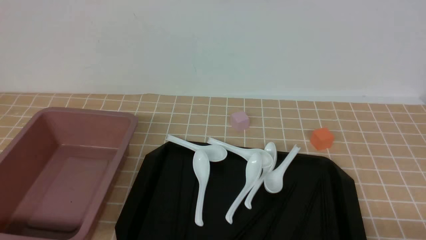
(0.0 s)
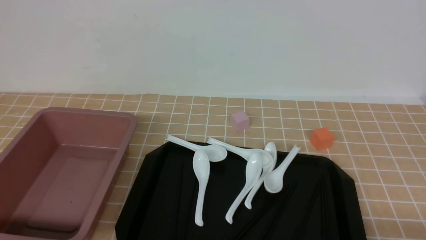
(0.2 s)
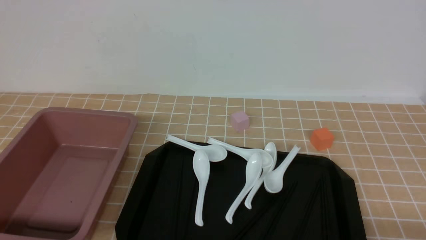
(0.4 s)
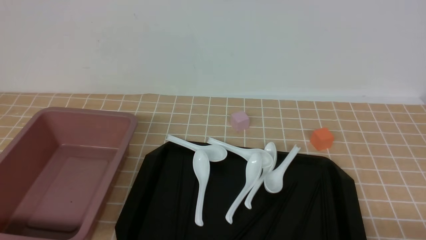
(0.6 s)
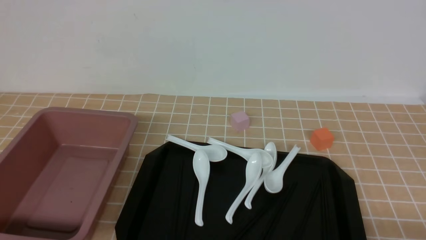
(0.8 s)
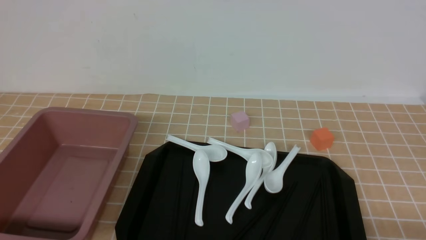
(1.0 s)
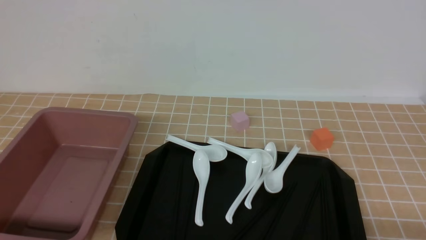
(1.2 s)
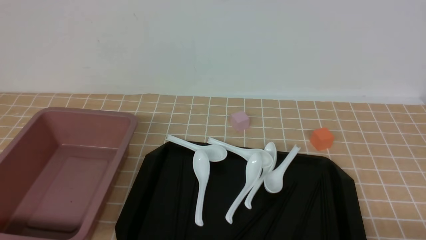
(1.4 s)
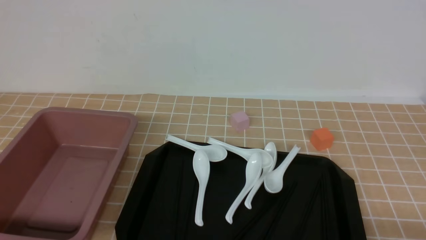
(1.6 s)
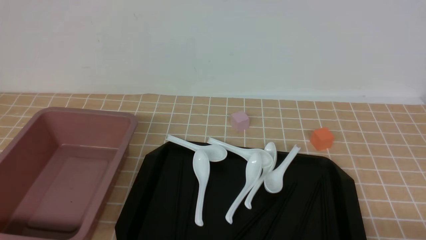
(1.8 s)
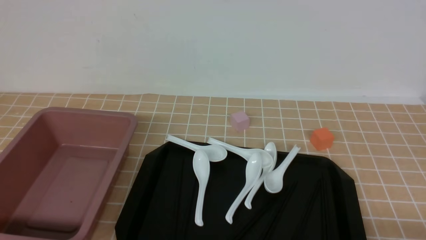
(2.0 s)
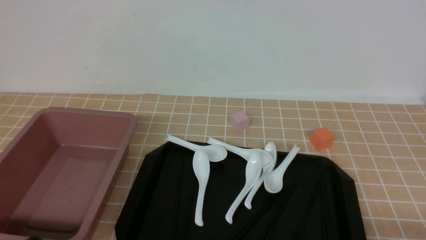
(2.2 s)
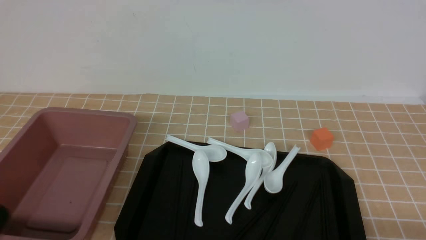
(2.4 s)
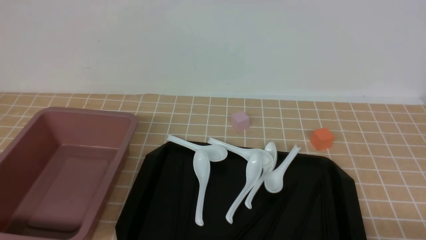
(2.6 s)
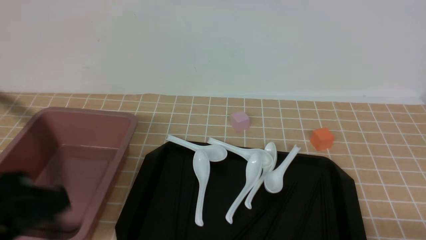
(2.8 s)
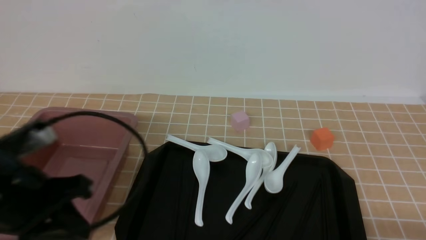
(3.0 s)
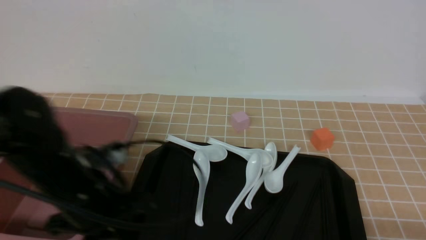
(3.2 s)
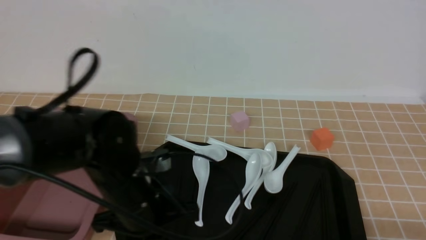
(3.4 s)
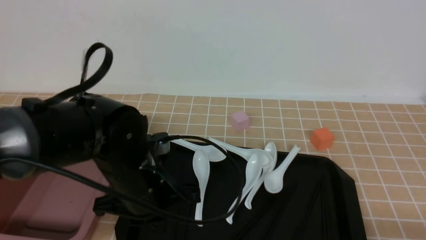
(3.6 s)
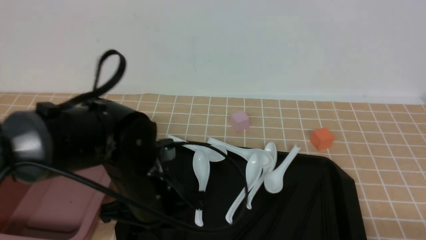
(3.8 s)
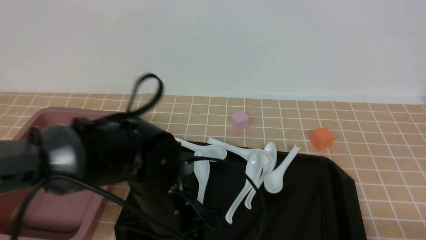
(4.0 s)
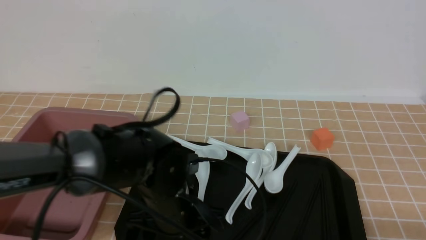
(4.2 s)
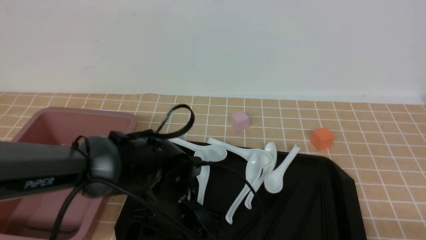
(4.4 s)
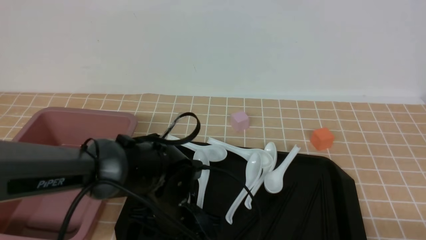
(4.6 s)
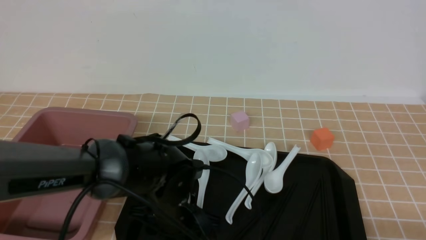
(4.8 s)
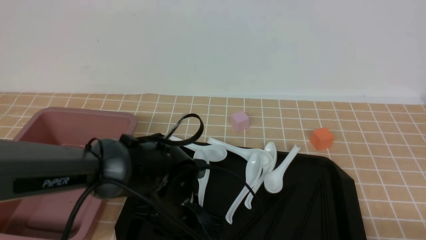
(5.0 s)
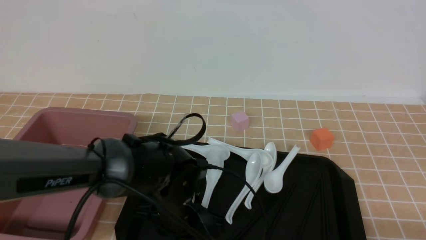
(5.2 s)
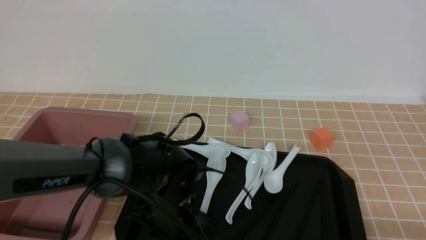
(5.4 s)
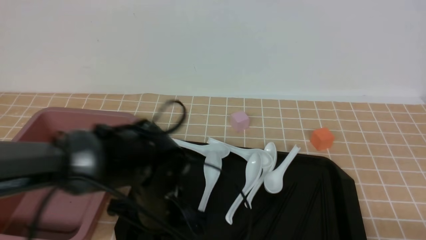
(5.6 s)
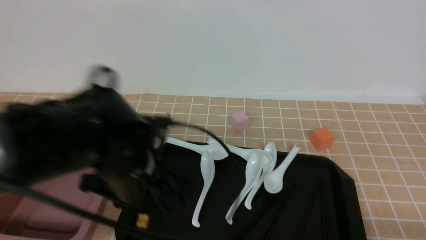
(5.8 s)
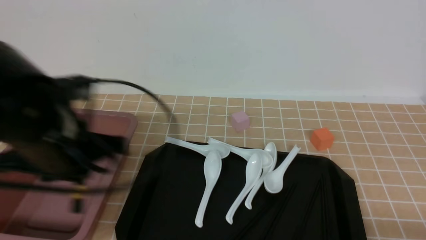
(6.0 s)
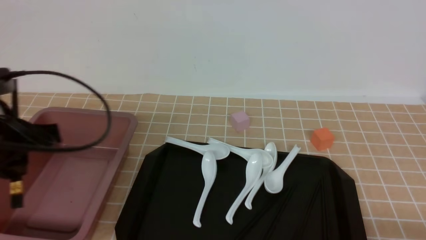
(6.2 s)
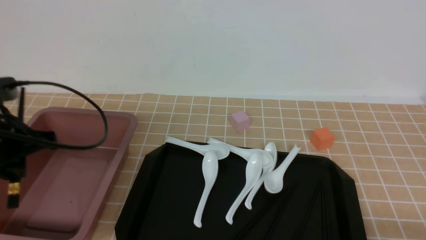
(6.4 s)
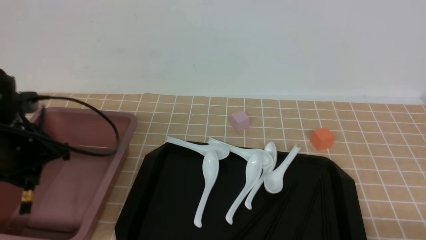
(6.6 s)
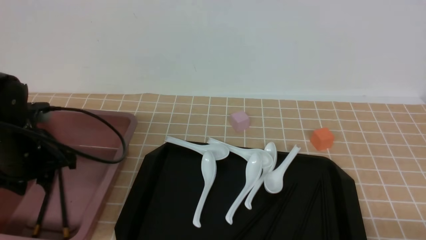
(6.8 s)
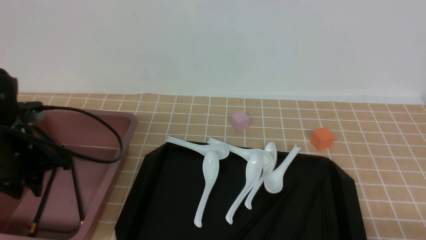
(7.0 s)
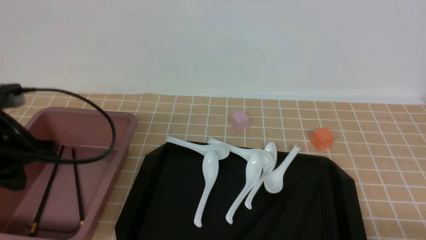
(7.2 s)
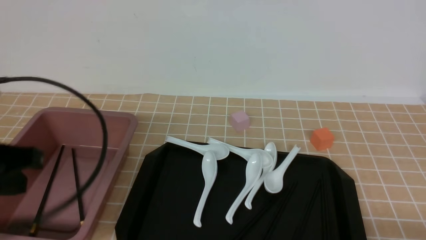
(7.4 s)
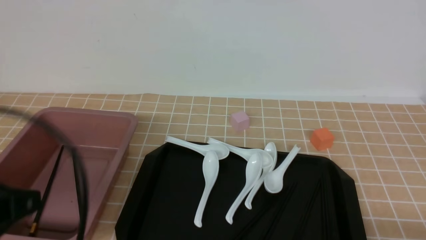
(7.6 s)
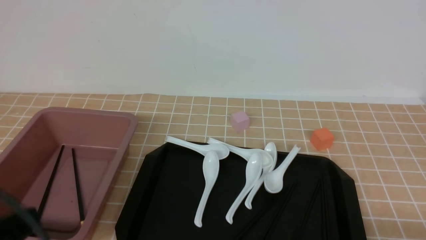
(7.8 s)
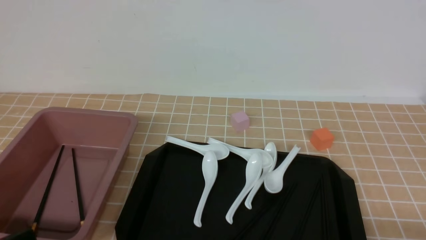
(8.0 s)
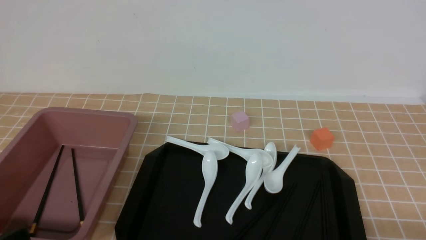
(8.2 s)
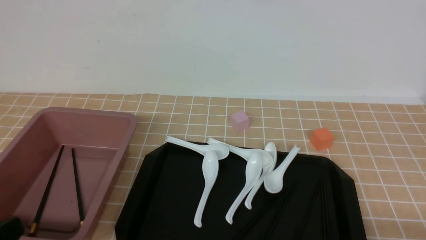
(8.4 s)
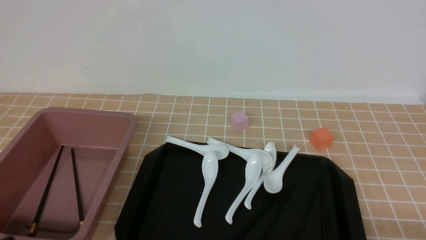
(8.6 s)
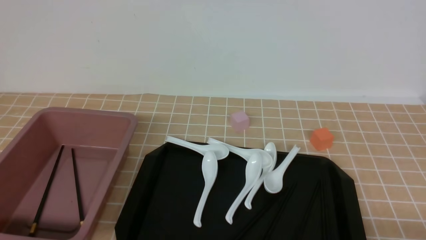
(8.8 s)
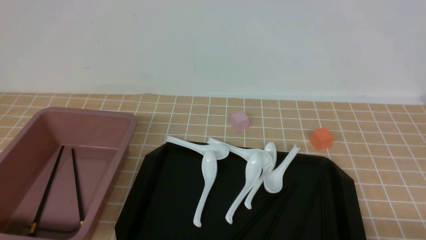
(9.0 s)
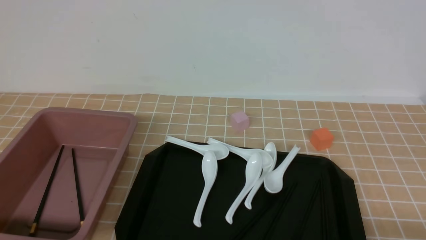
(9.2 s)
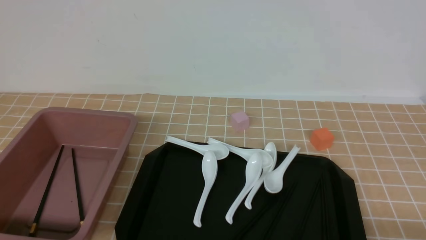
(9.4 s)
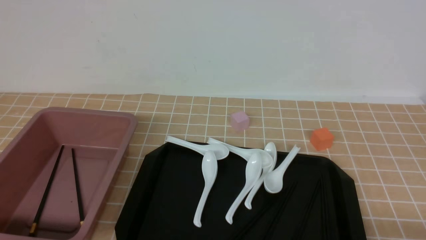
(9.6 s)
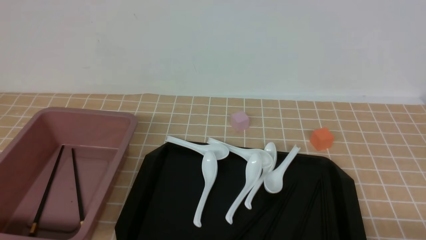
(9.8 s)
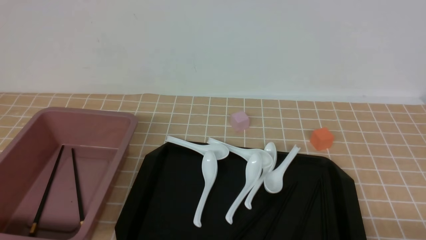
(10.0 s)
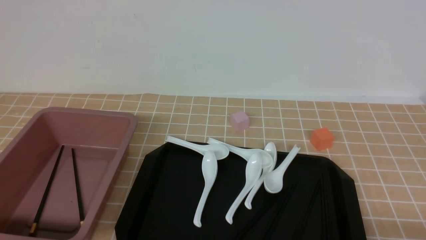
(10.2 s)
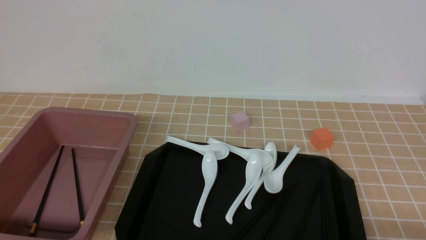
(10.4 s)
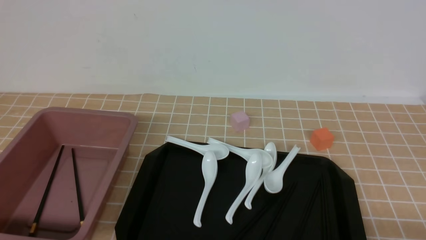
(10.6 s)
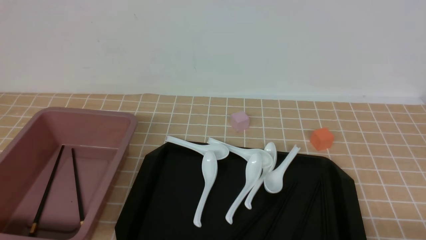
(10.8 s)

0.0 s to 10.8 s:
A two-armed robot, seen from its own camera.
Step, 0.0 to 5.6 s: use the left arm to grab a pair of chopsticks.
Step, 6.0 to 7.2 s: use the left arm to put the chopsticks into the lunch box.
0.0 to 1.6 s: The two grippers keep their place.
1.6 to 3.0 s: The left gripper heads forward, upward and to the right, covering approximately 20 cm, and closes up.
3.0 to 4.6 s: The left gripper is displaced to the right, downward and forward by approximately 20 cm, and opens up.
4.6 to 6.2 s: The left gripper goes some 25 cm to the left and upward, and closes its fingers.
6.2 to 7.8 s: The left gripper moves backward, about 20 cm.
7.8 to 9.2 s: The left gripper is displaced downward by about 10 cm.
9.2 to 10.8 s: Neither gripper changes place.

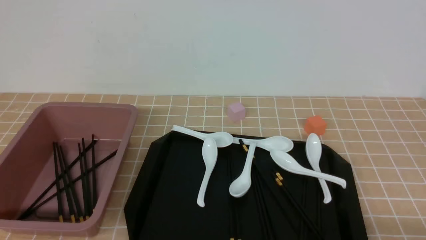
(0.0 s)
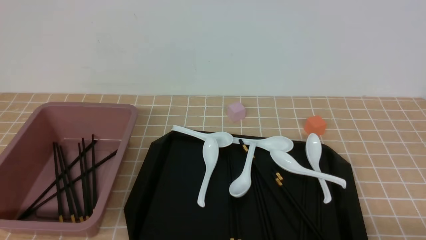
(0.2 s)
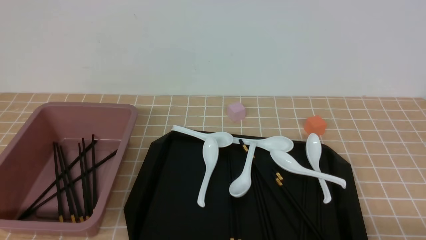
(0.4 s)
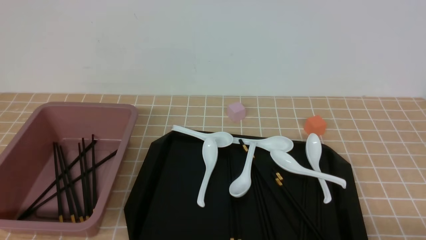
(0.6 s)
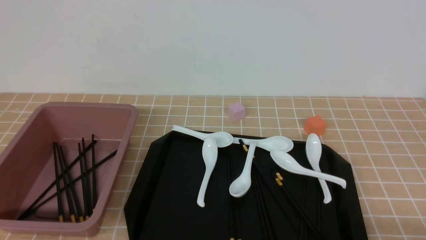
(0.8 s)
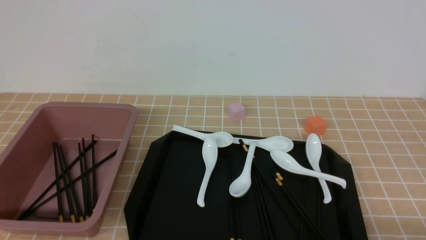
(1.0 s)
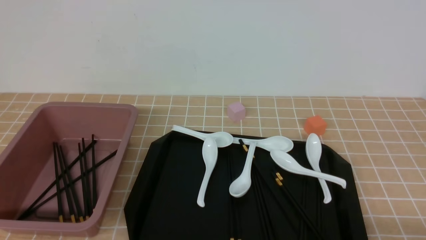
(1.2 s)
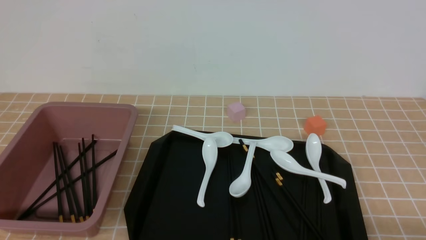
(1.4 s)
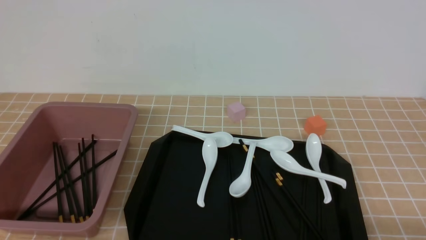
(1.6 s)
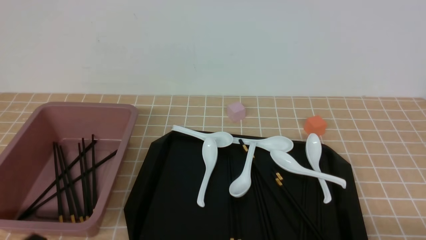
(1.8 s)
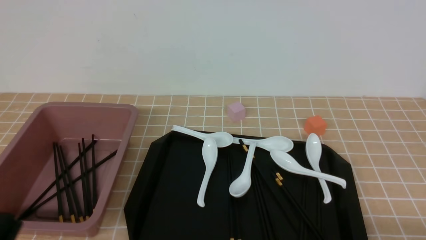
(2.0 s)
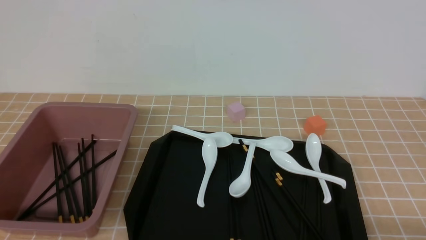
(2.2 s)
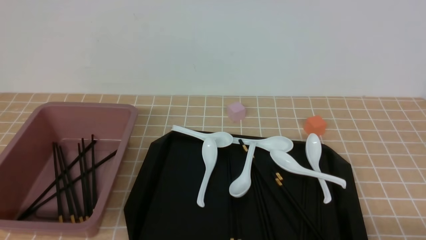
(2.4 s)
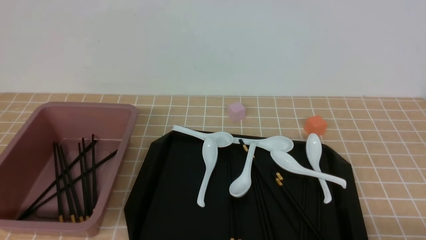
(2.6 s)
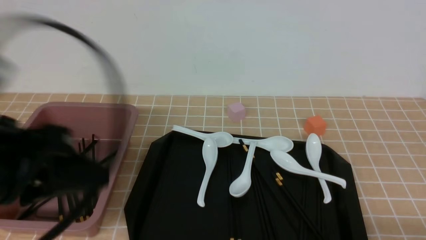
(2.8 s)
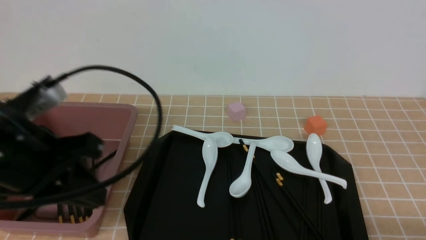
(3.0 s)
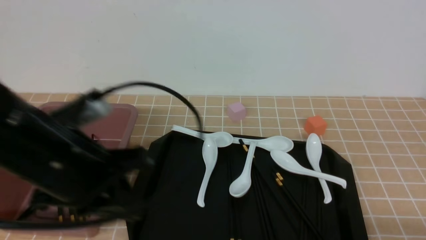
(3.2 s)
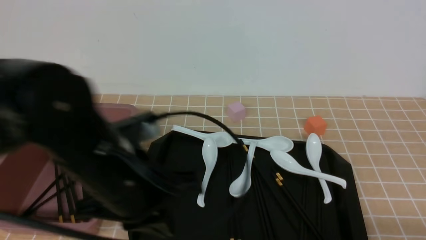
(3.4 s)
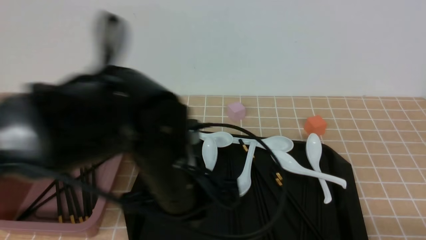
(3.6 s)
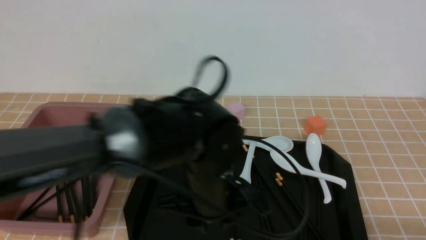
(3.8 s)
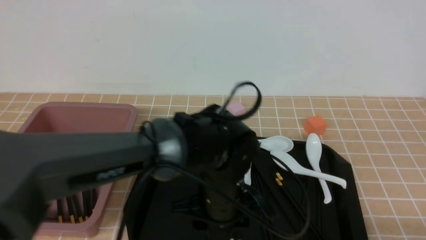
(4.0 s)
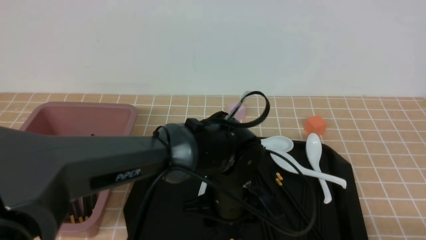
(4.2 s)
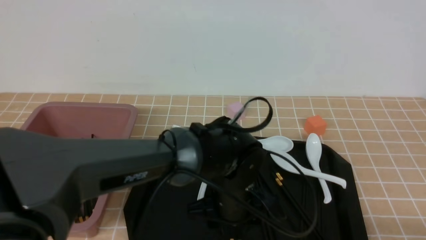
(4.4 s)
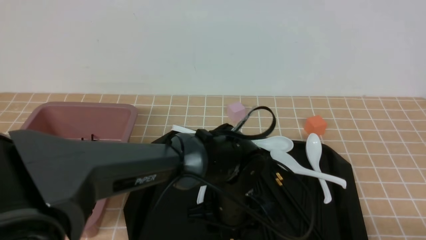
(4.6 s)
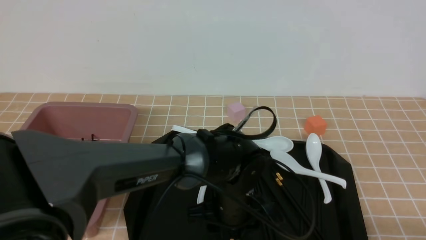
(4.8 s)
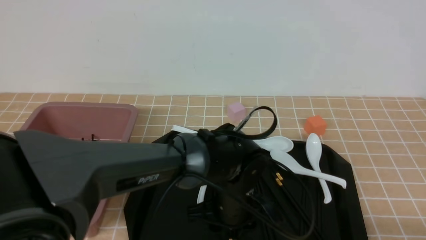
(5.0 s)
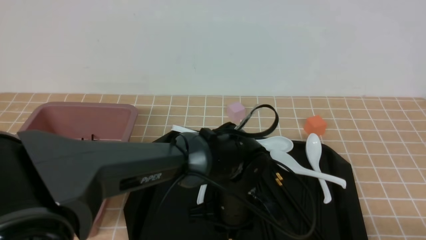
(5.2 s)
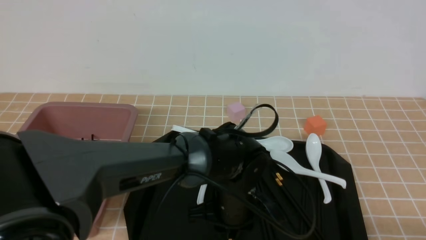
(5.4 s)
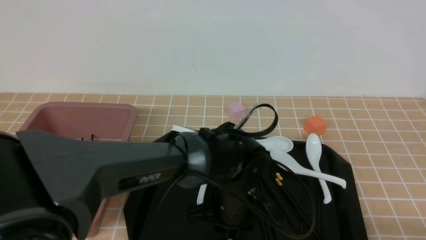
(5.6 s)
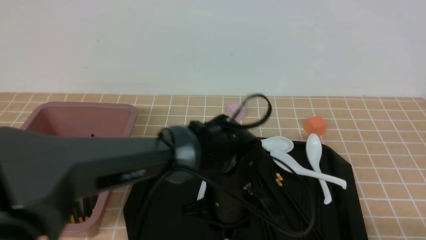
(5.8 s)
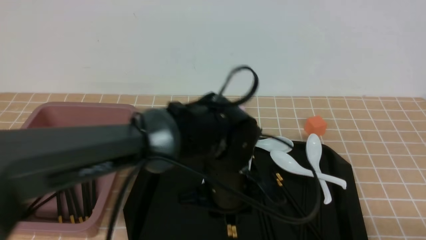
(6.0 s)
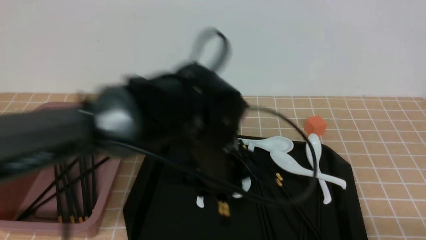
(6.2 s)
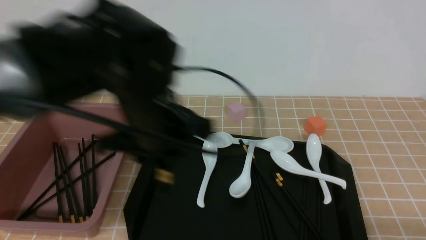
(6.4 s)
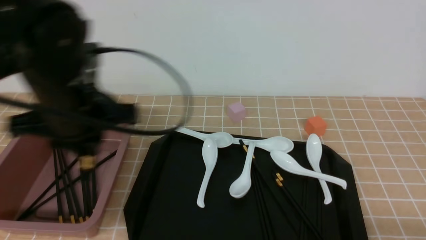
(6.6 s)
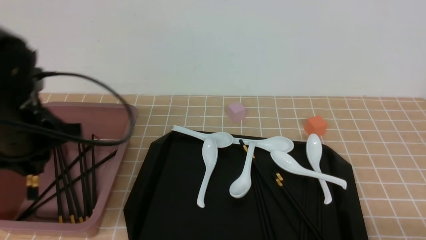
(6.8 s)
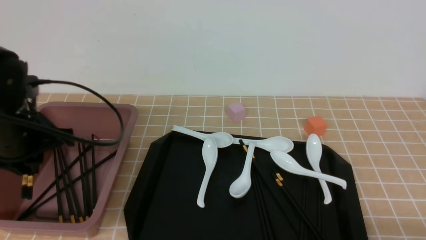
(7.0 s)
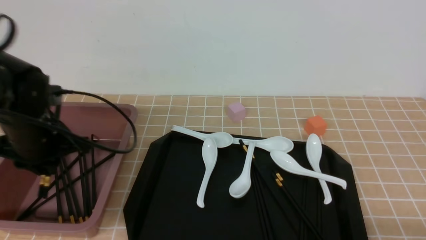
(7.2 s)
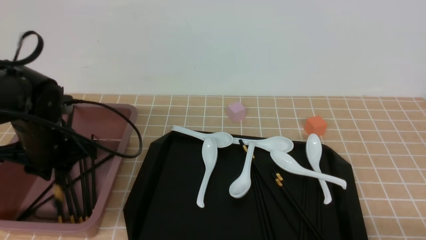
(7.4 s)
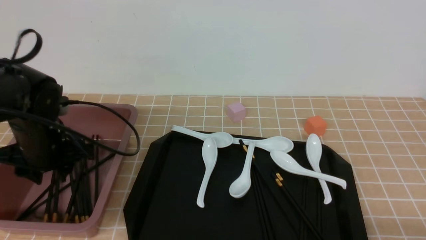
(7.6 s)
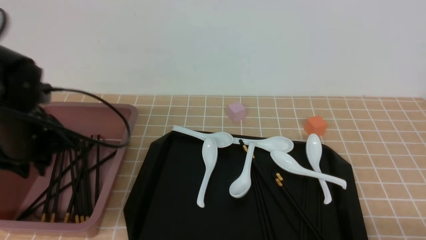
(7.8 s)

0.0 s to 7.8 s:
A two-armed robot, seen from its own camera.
Step, 0.0 to 6.0 s: use the left arm to grab a pair of chopsticks.
1.6 to 3.2 s: The left gripper goes roughly 20 cm upward, forward and to the right.
3.2 to 4.6 s: The left gripper is displaced to the right and downward by roughly 25 cm, and opens.
4.6 to 6.2 s: The left gripper moves upward, about 10 cm, and closes its fingers.
6.2 to 7.8 s: The left gripper goes approximately 25 cm to the left.
